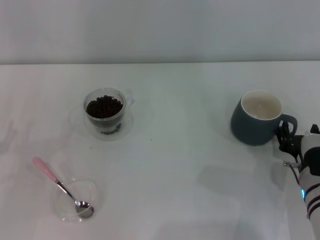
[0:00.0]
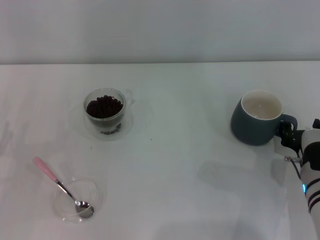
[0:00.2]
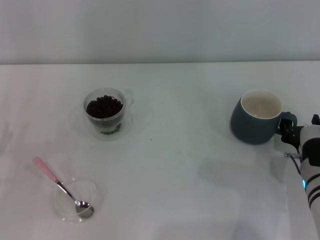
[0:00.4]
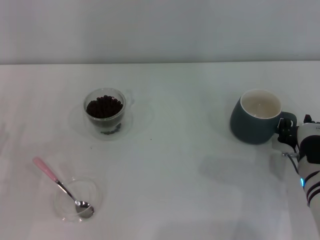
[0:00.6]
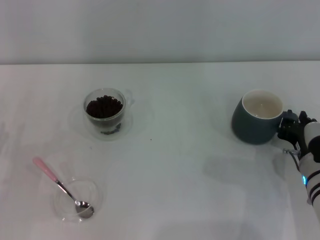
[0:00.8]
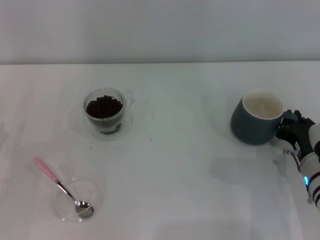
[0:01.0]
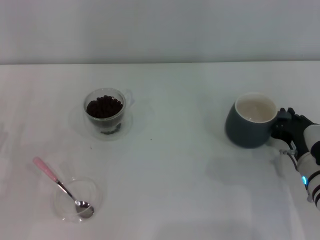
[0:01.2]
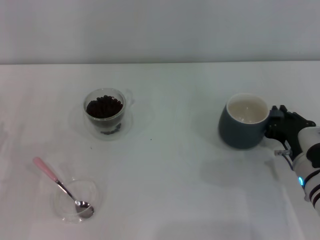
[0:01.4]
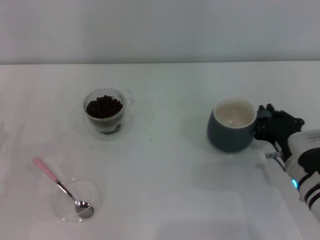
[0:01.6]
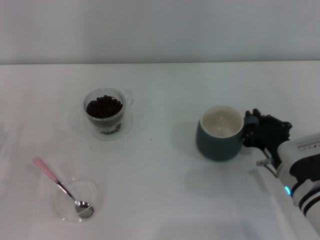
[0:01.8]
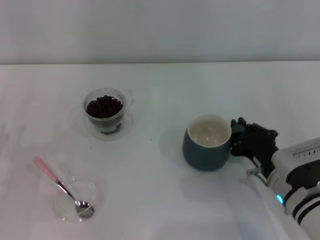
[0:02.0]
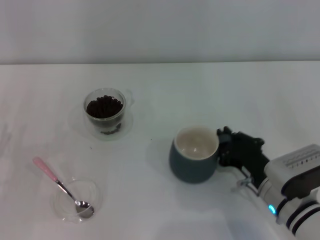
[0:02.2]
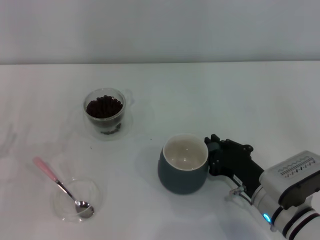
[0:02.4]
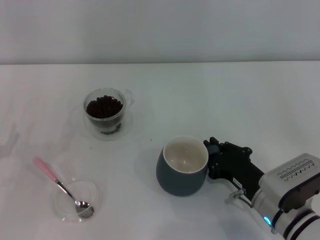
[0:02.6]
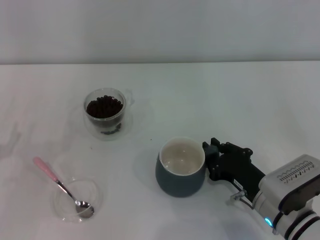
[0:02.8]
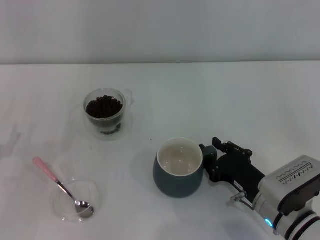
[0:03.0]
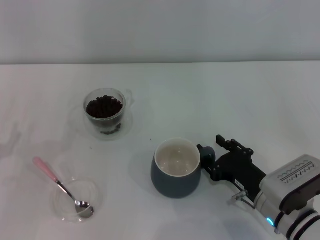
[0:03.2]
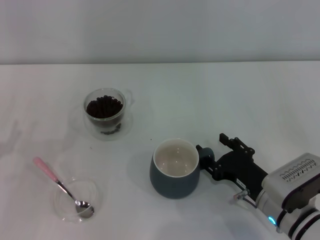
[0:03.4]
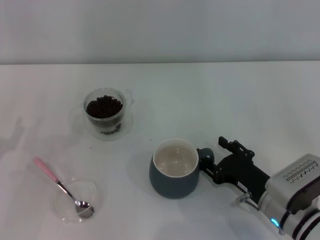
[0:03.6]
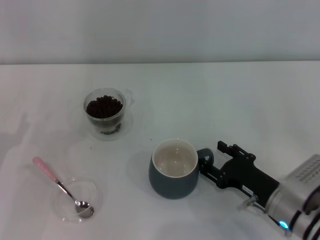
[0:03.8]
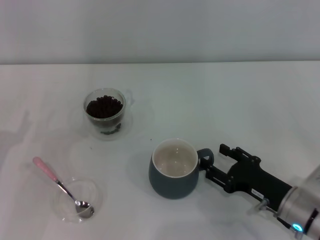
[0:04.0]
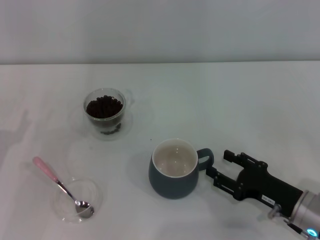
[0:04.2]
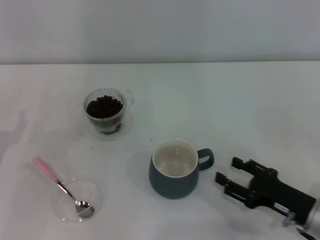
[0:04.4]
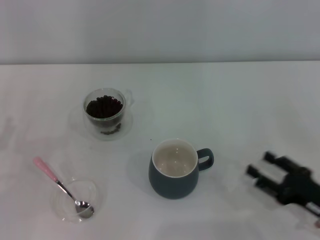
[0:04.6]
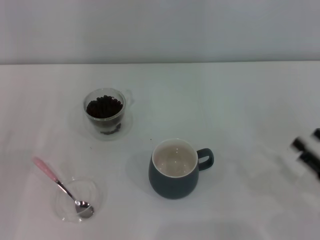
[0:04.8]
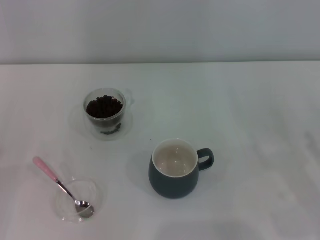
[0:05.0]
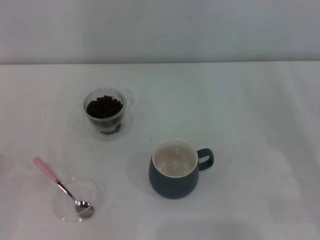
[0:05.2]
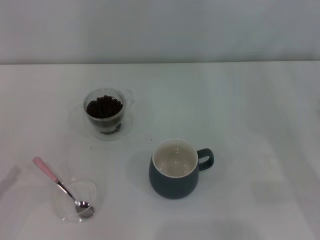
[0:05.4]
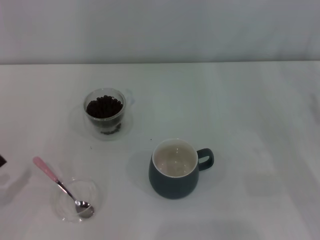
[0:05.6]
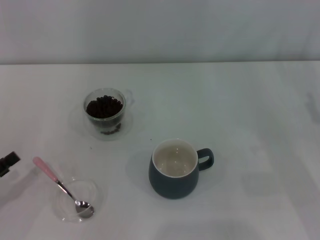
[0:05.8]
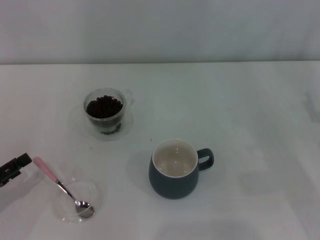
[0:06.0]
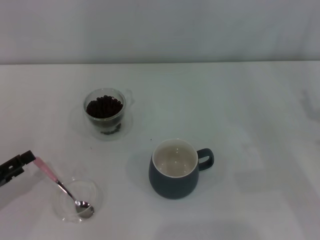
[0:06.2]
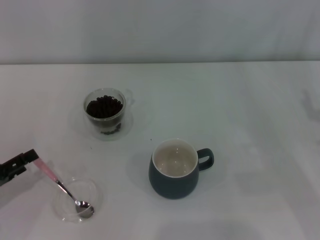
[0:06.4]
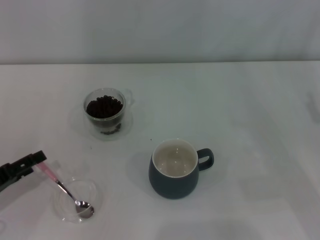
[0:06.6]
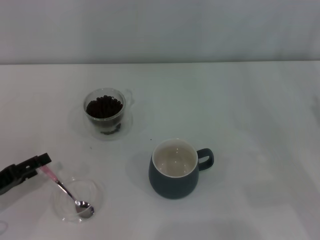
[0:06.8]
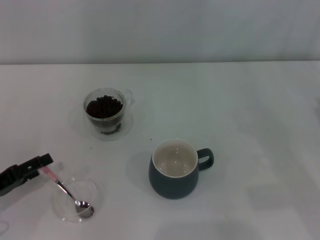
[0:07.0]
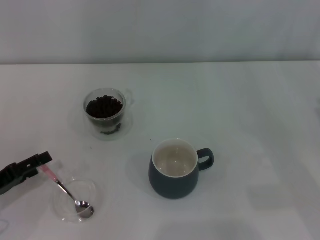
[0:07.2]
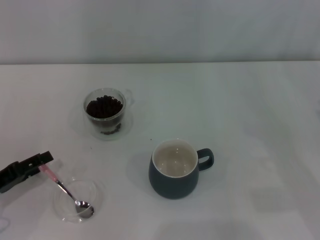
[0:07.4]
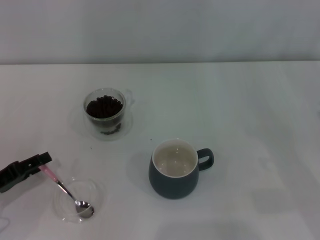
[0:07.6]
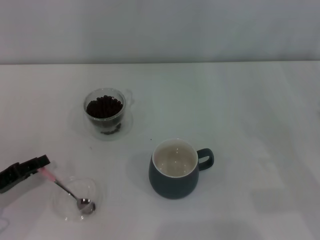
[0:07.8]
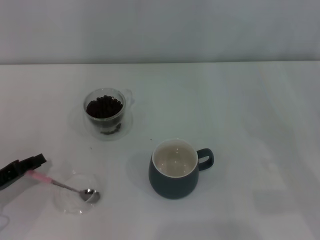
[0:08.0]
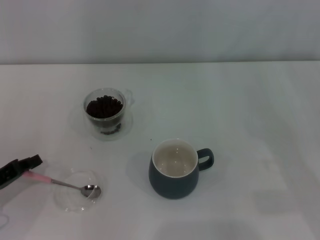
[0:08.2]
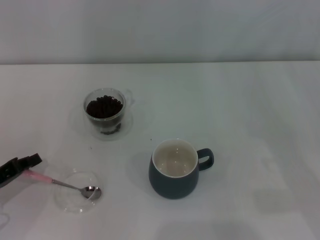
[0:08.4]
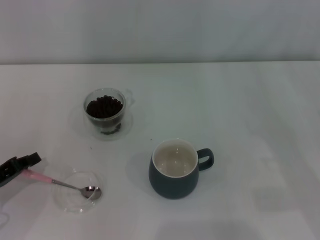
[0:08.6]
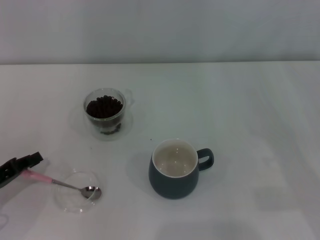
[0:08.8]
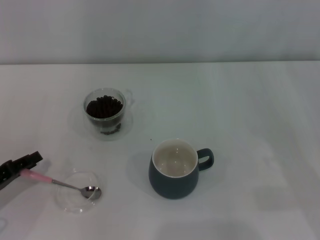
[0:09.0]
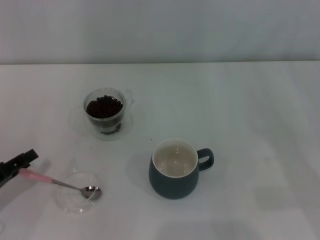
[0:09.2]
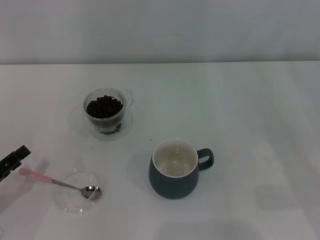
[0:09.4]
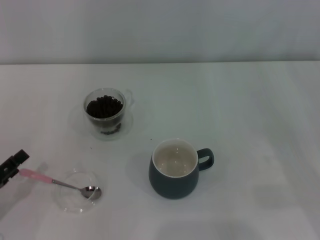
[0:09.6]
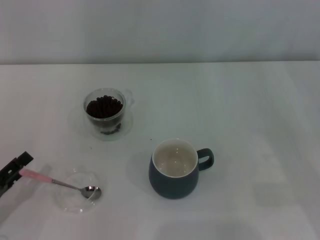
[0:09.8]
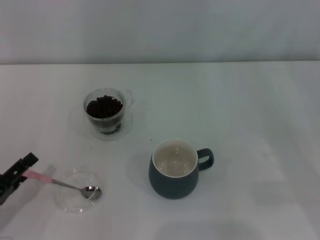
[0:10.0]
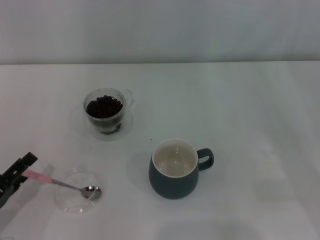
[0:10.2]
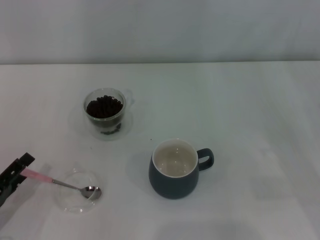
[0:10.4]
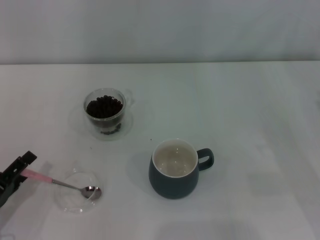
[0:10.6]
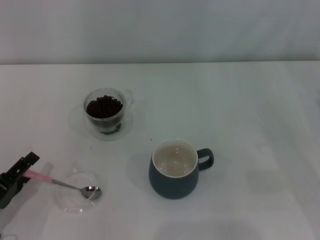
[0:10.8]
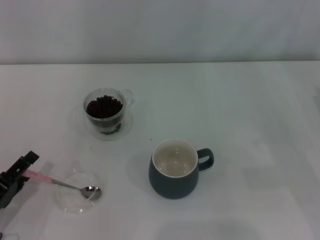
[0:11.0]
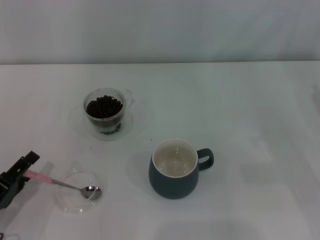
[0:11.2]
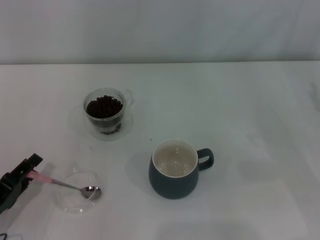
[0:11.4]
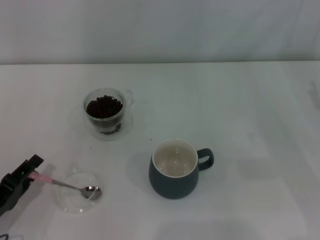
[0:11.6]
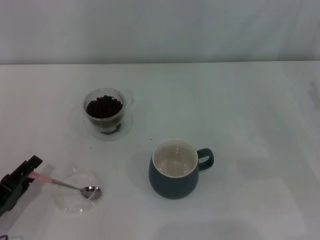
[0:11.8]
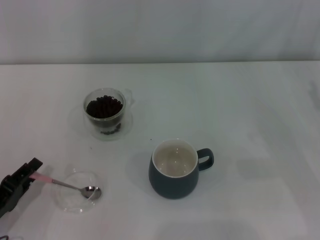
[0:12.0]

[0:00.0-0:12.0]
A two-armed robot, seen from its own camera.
Task of the whole recording: Use a pink spoon to take out the coffee beans from the glass and pour them into the gray cup.
Step, 0:00.0 to 0:04.4: Move the cup to the center of view with the left gripper.
0:00.0 to 0:01.6: The right gripper closes up.
0:01.6 to 0:03.0: The right gripper moves approximately 5 cm.
0:03.0 to 0:04.4: The right gripper is displaced to the right by some 10 cm, and opens up.
0:04.4 to 0:06.0: The right gripper moves to the right, upward and forward, approximately 15 cm; the left gripper is displaced backward by about 5 cm.
0:06.0 to 0:07.6: The grippers make only small movements.
0:07.6 to 0:09.0: The left gripper closes its fingers.
0:09.0 to 0:10.4: The left gripper shifts roughly 5 cm backward, and opens up.
0:10.4 to 0:12.0: The left gripper closes its fingers.

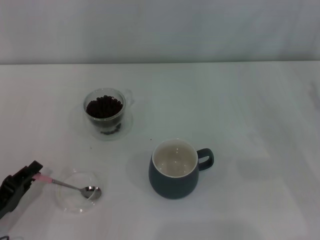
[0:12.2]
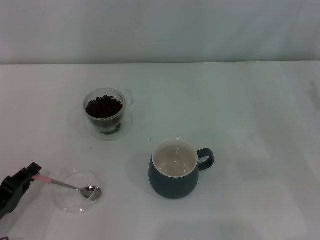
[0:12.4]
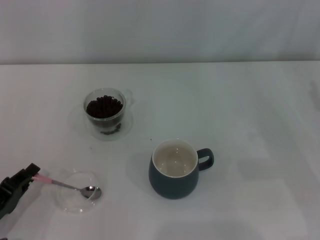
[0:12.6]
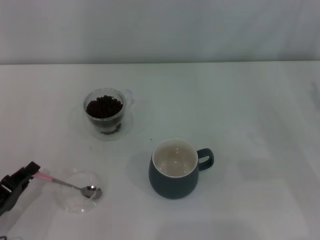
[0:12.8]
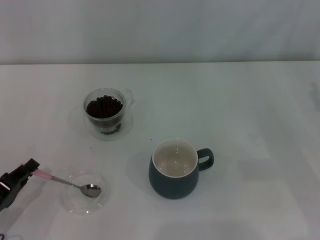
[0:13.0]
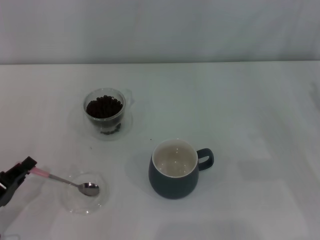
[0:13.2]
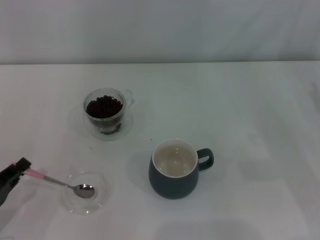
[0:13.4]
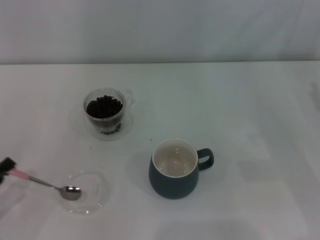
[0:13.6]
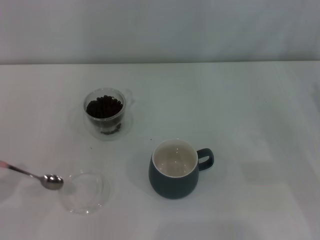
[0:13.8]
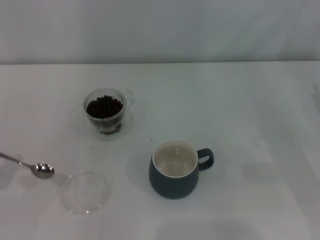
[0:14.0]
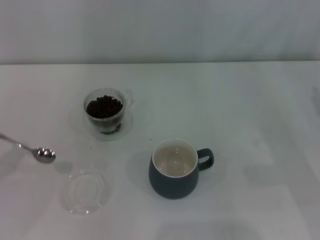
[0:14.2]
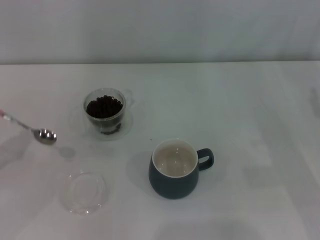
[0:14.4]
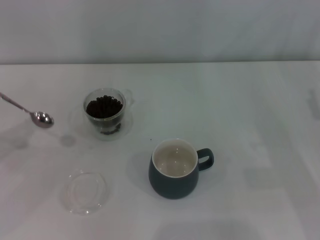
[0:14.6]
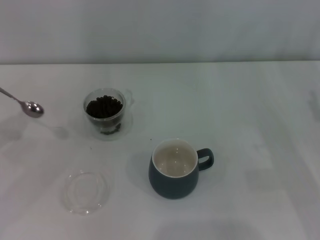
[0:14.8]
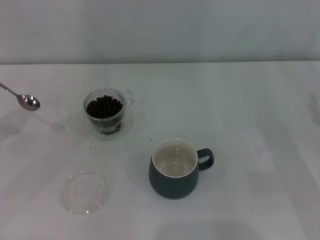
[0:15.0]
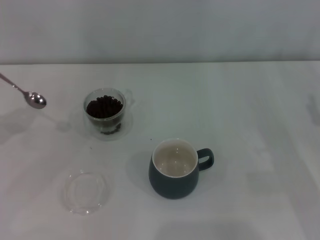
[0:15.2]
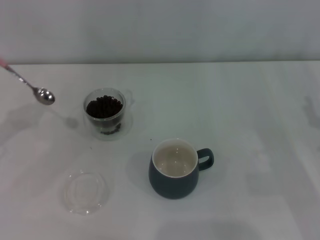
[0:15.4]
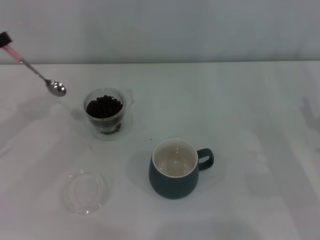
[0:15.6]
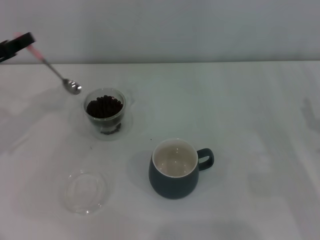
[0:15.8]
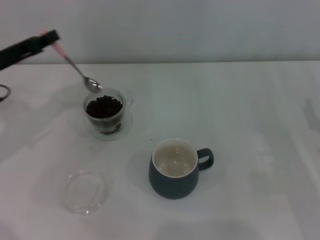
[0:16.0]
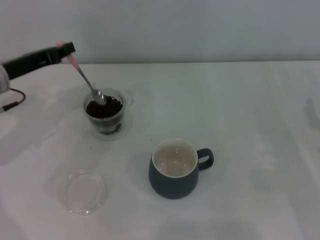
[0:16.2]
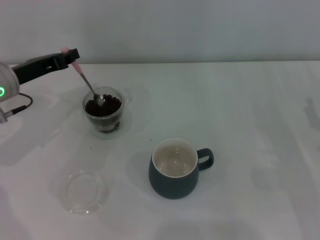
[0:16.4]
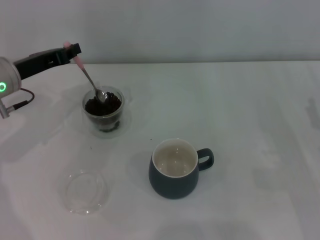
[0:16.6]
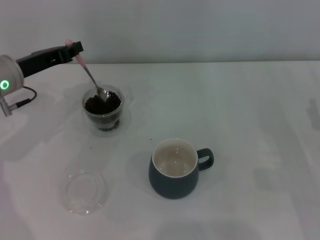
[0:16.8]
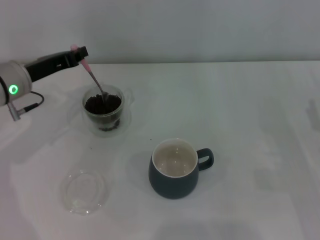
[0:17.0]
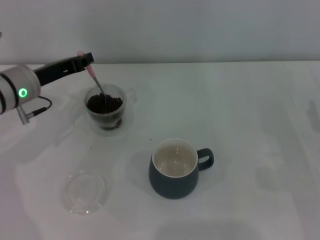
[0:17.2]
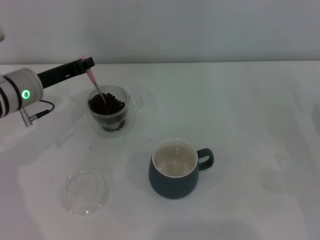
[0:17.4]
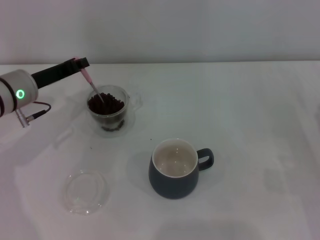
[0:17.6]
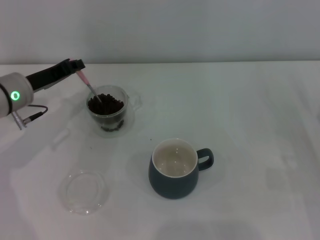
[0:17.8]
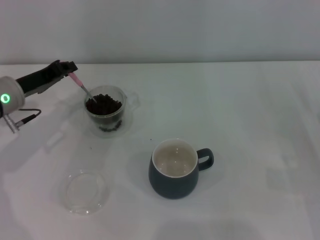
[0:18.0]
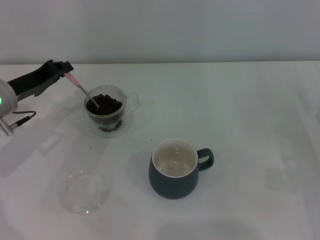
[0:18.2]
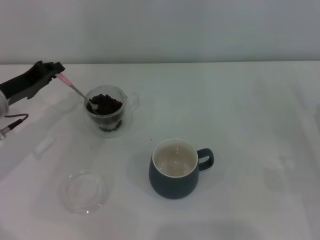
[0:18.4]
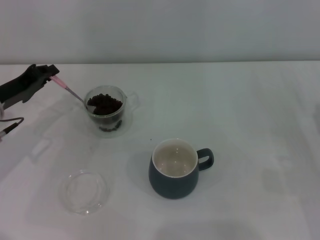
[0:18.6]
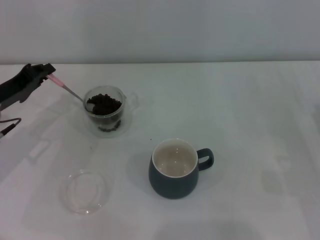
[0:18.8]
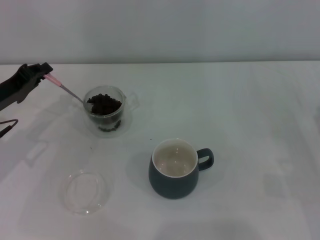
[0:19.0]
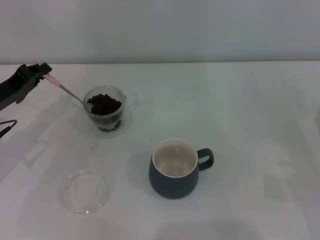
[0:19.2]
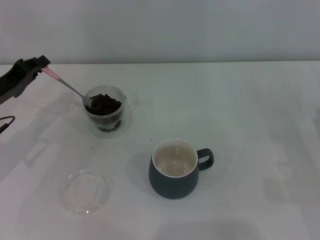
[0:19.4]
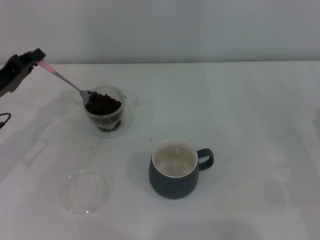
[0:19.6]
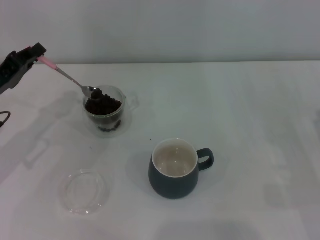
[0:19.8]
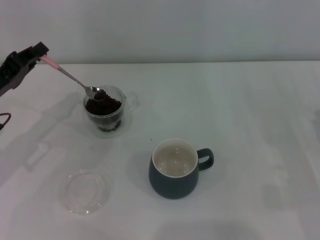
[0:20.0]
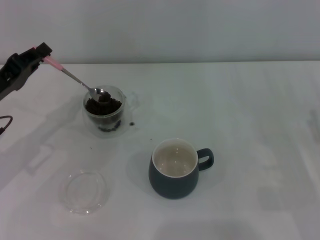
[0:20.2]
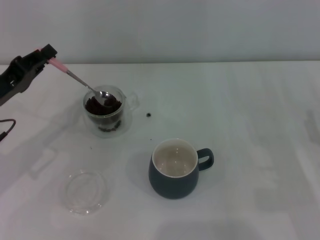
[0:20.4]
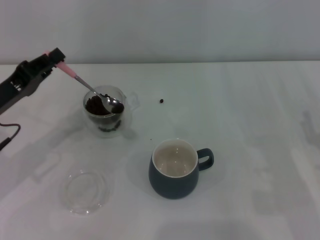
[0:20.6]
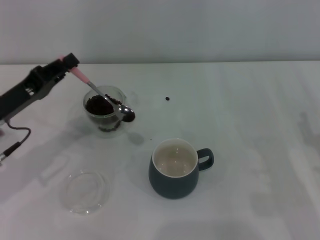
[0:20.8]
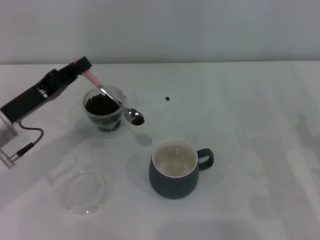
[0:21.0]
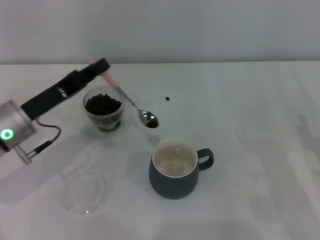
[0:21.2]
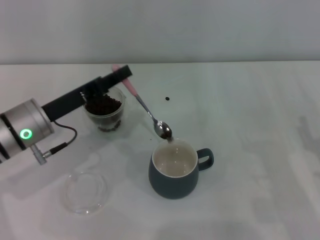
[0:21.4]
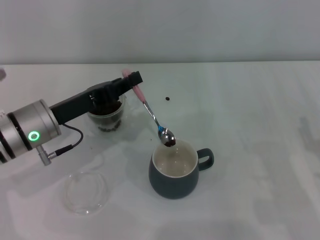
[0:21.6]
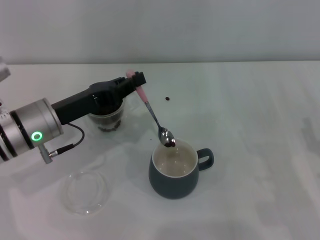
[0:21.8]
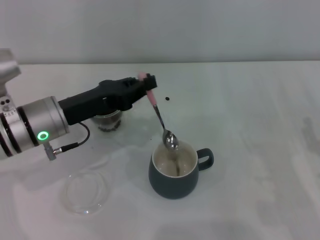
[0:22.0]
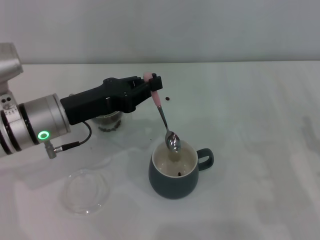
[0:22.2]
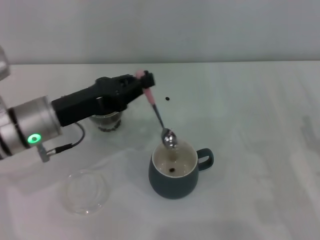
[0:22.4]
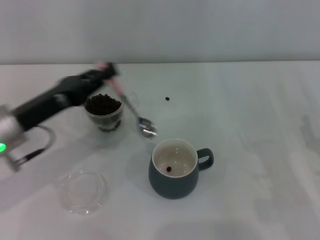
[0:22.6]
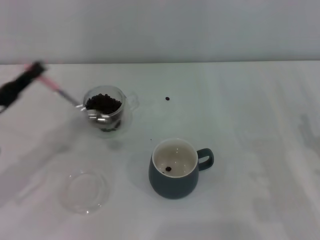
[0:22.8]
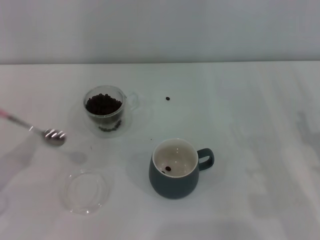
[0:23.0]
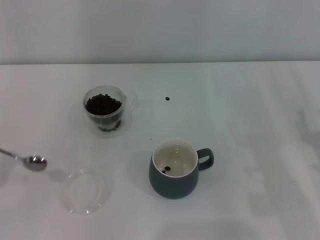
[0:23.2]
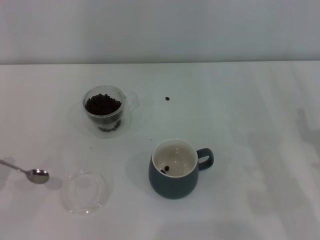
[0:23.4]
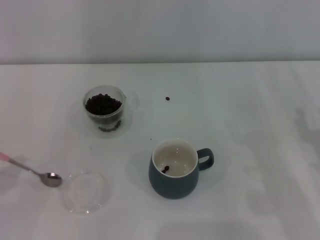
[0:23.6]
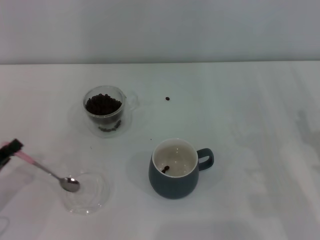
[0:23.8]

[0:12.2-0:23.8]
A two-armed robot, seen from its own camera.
Task of the whole recording: Use a pink spoon to take out the coffee beans from the glass and pour them into the gray cup.
Step, 0:14.0 to 0:22.4: Scoop a spoonful of beans into the cup with the right gripper.
0:12.2 to 0:13.6: The grippers stay close to where they were, moving slightly.
0:13.6 to 0:15.0: The left gripper moves forward and upward, some 15 cm.
0:15.0 to 0:16.6: The left gripper heads to the right and forward, covering roughly 15 cm.
0:18.0 to 0:19.4: The left gripper changes place by approximately 5 cm.
0:19.4 to 0:21.0: The left gripper moves roughly 5 cm.
0:21.0 to 0:22.4: The left gripper is displaced to the right by some 5 cm.
0:22.4 to 0:23.8: The left gripper heads to the left, backward and downward, covering roughly 20 cm.
